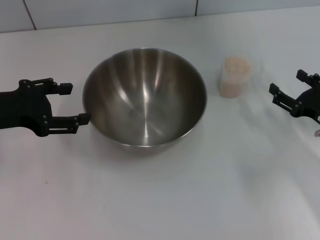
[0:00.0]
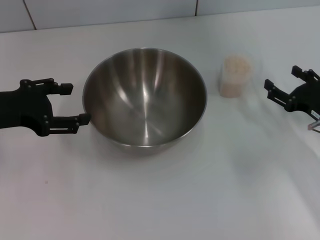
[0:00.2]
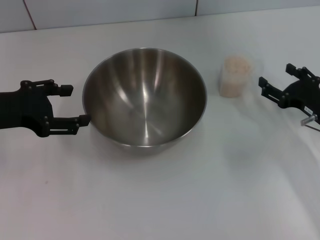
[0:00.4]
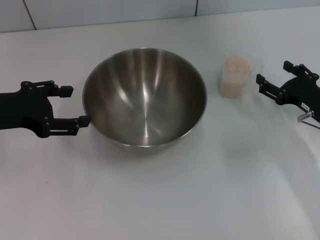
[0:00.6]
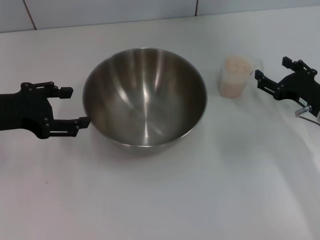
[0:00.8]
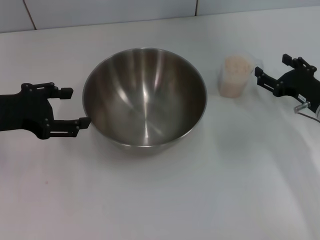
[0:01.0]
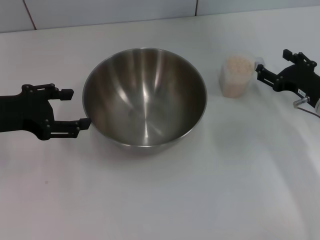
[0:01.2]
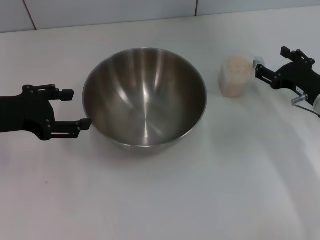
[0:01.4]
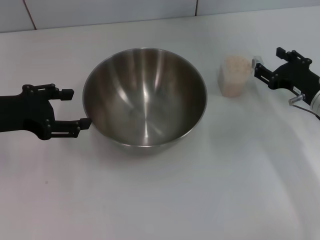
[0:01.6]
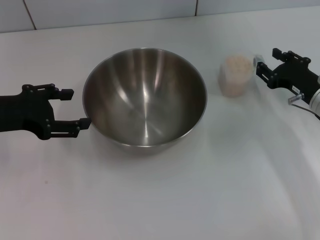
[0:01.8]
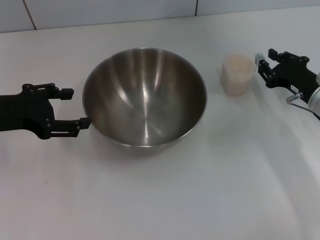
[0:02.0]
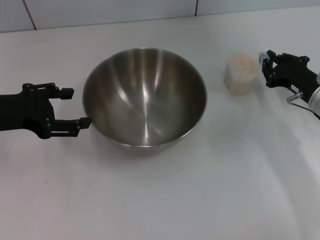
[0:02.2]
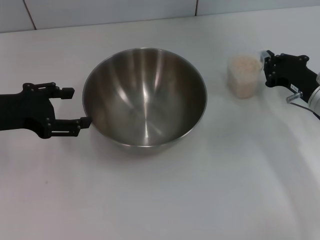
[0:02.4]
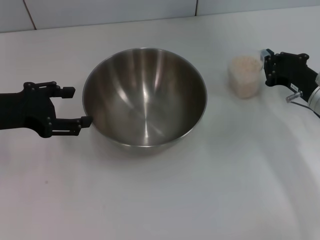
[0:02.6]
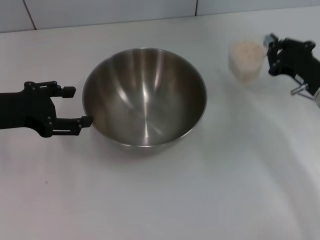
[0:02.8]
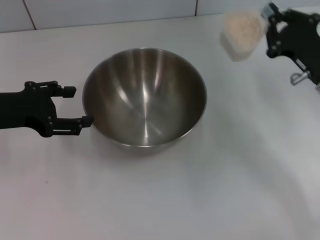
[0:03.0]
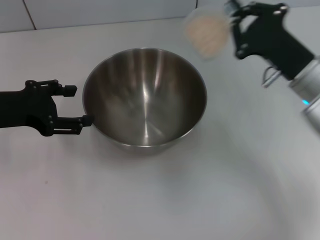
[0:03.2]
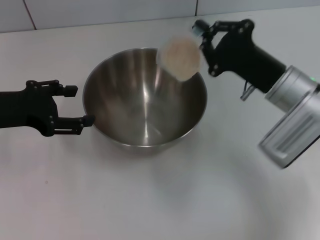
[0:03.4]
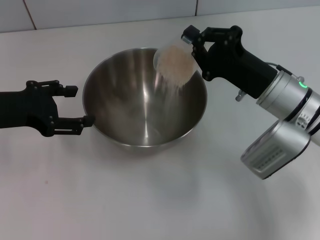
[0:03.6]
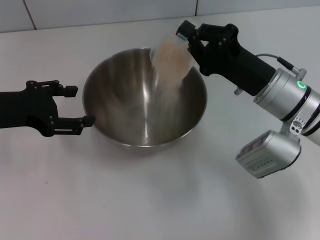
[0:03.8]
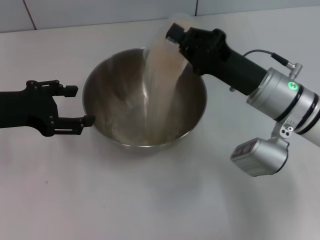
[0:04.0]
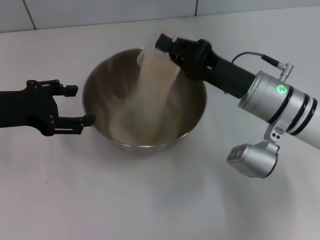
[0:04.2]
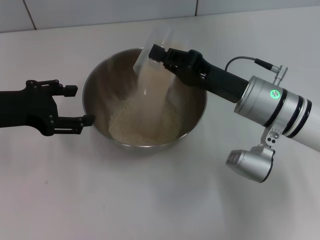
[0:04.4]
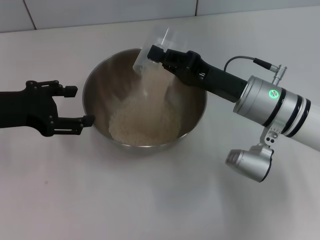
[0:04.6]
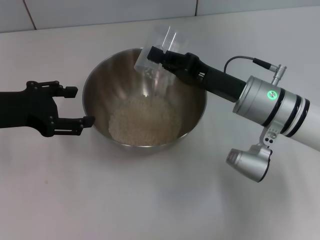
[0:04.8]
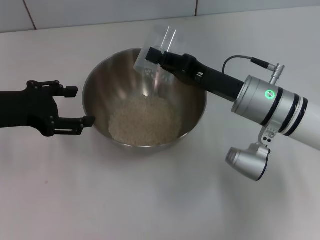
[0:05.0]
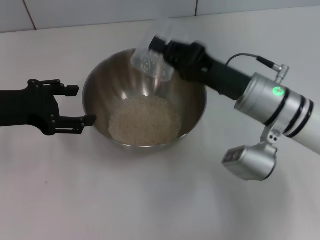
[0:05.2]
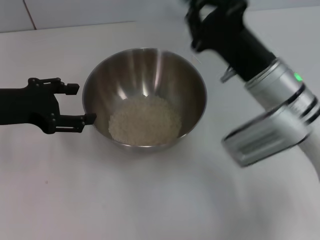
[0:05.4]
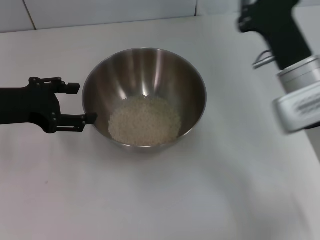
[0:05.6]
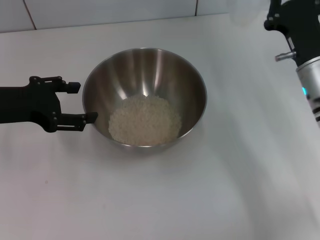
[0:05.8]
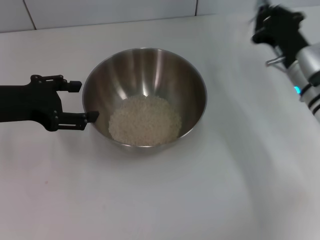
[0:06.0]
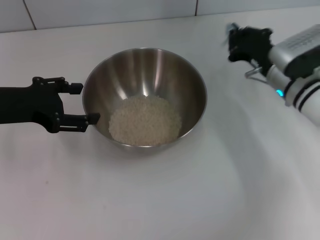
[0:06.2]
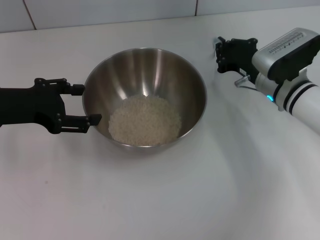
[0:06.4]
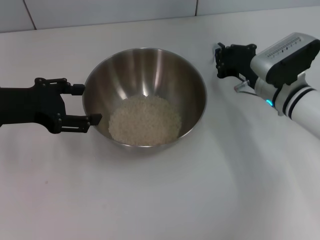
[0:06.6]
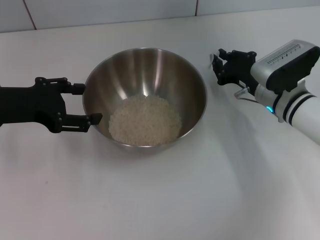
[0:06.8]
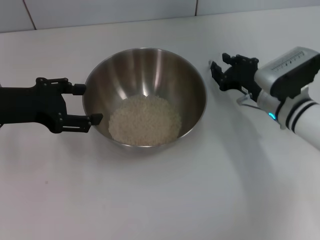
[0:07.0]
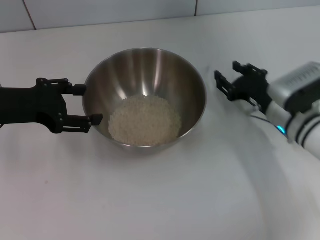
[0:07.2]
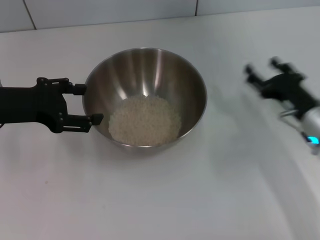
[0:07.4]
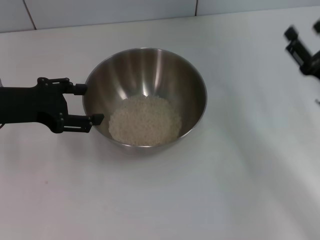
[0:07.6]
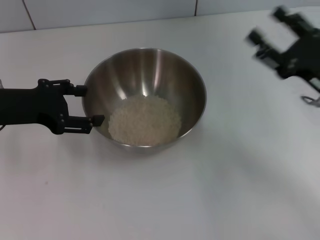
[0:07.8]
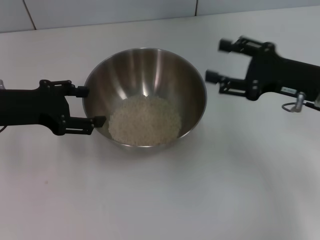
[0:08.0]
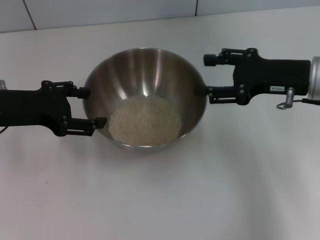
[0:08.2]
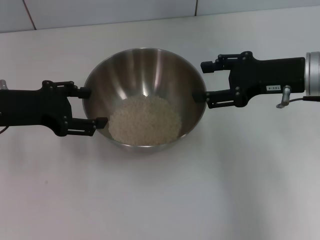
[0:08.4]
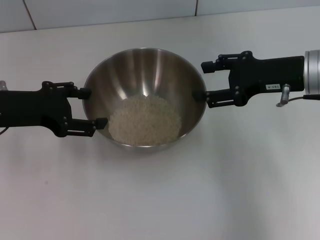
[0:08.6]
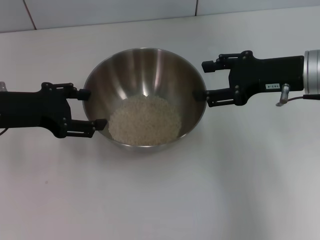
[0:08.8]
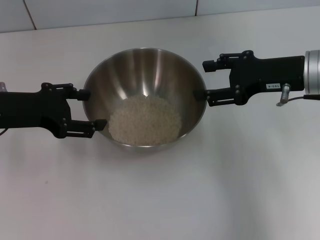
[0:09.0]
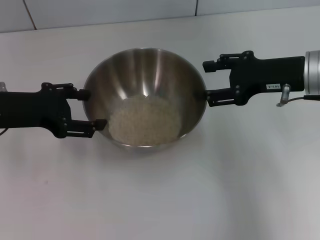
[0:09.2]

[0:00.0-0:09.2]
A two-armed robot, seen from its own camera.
Task of the whole recording: Place the bowl in the middle of the table with one hand and pour the rice from the grain cup into it with the other hand.
Step, 0:00.0 to 0:02.8: Pick up the cup with rice in it with the right gripper.
Step, 0:03.0 to 0:05.6: Pour the rice from the cup into the bowl with the right gripper.
Step, 0:05.8 to 0:07.4: Place the cup on the table with the right gripper.
0:00.0 to 0:01.6: The right gripper moves forward, some 5 cm.
0:01.6 to 0:03.0: The right gripper moves upward, some 5 cm, and closes its fingers.
0:03.0 to 0:04.6: The right gripper is displaced to the left by about 10 cm.
0:04.6 to 0:06.2: The right gripper moves to the right and forward, roughly 10 cm.
0:06.2 to 0:07.6: The right gripper heads backward and to the right, covering some 15 cm, and opens.
0:07.6 to 0:09.2: The right gripper shifts approximately 10 cm upward and forward.

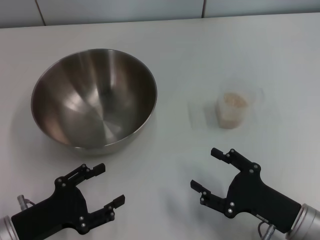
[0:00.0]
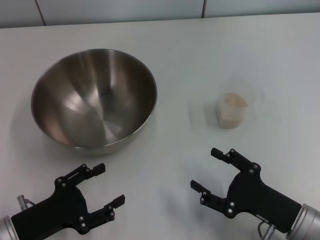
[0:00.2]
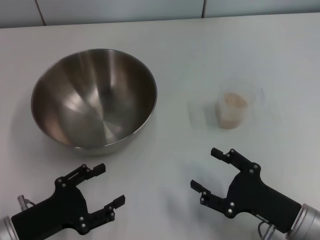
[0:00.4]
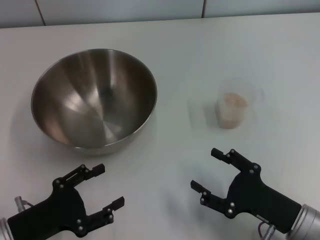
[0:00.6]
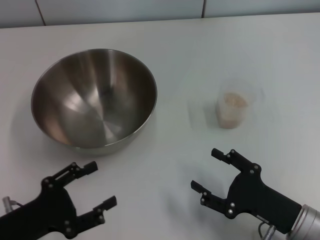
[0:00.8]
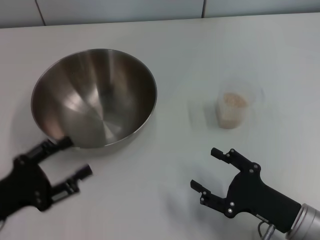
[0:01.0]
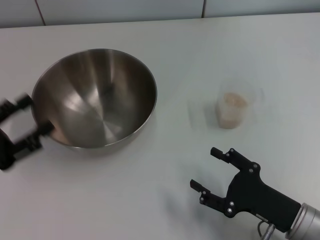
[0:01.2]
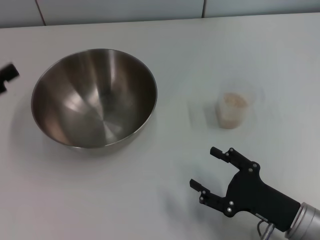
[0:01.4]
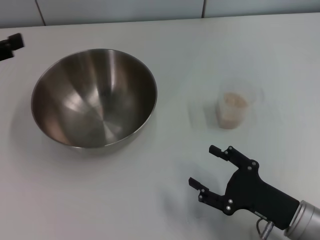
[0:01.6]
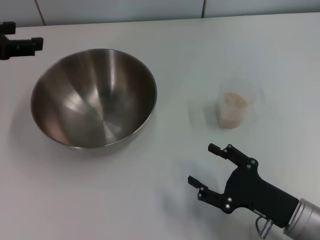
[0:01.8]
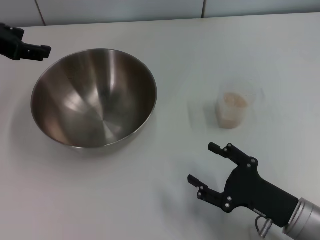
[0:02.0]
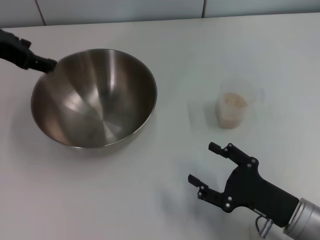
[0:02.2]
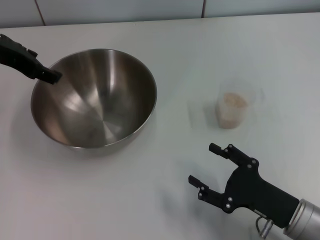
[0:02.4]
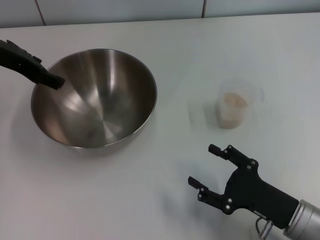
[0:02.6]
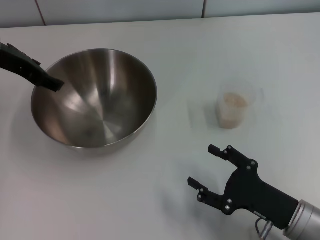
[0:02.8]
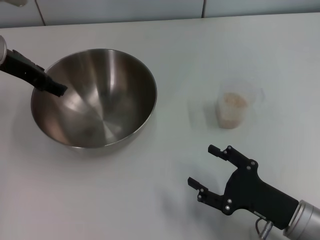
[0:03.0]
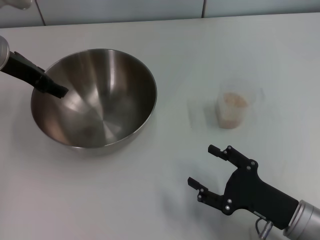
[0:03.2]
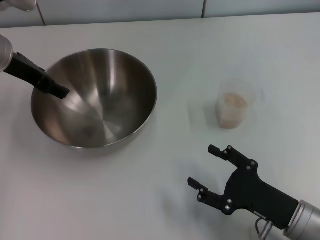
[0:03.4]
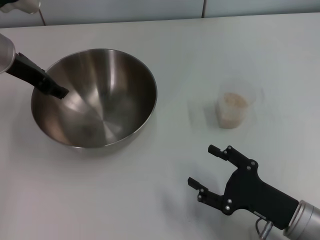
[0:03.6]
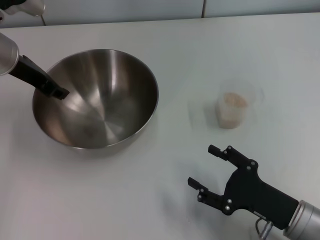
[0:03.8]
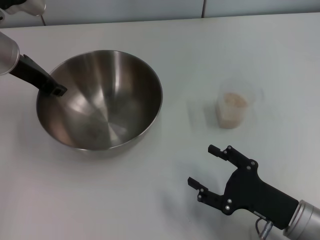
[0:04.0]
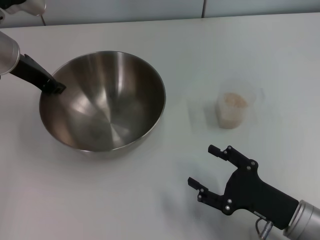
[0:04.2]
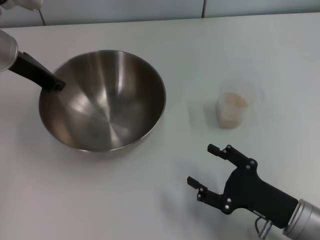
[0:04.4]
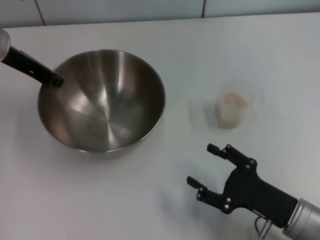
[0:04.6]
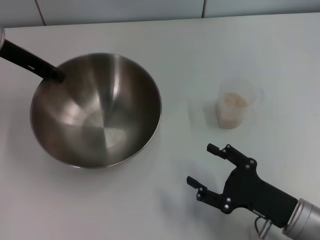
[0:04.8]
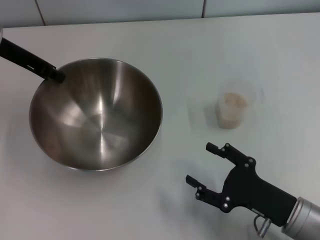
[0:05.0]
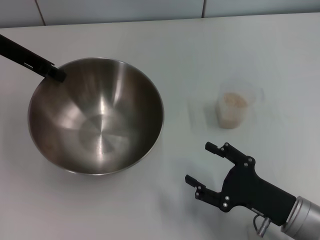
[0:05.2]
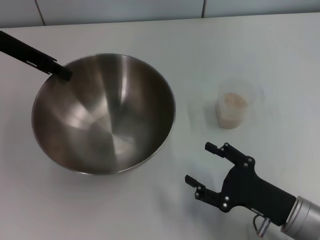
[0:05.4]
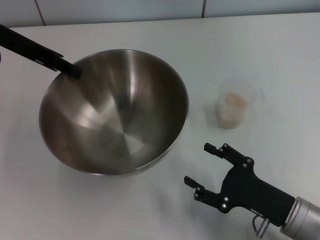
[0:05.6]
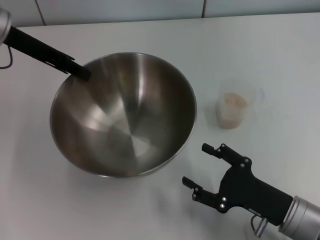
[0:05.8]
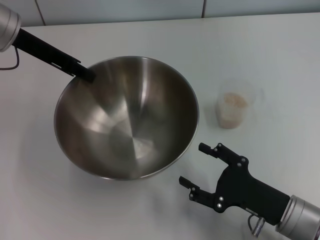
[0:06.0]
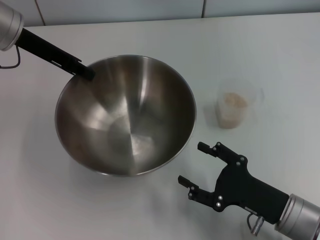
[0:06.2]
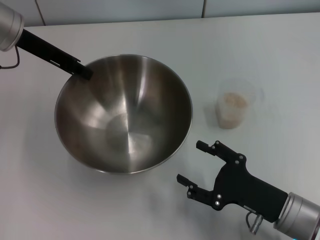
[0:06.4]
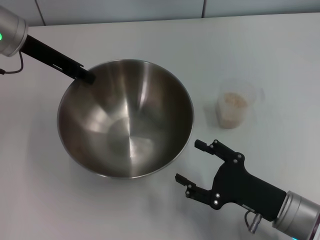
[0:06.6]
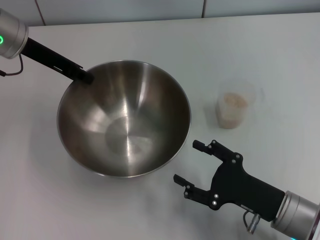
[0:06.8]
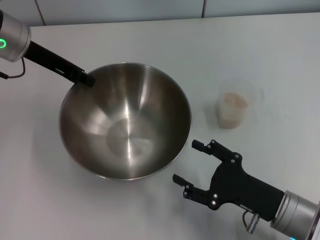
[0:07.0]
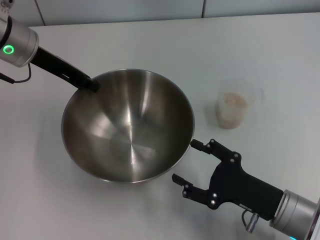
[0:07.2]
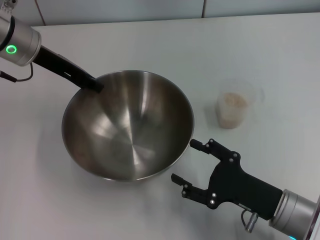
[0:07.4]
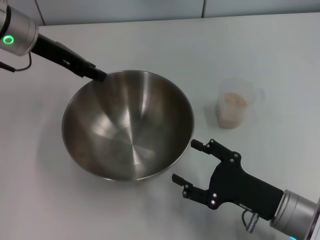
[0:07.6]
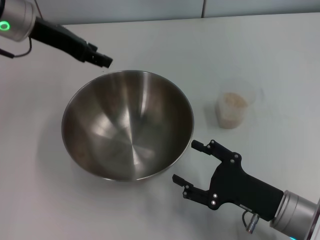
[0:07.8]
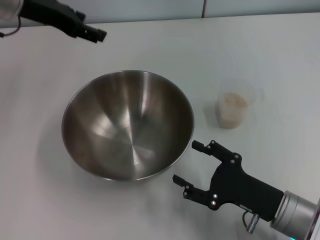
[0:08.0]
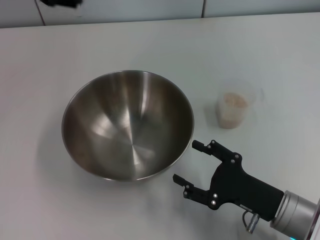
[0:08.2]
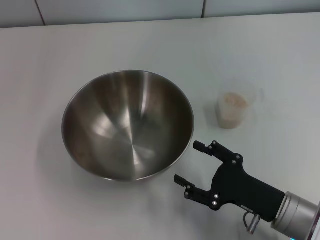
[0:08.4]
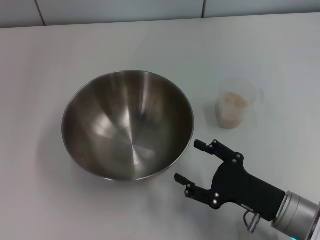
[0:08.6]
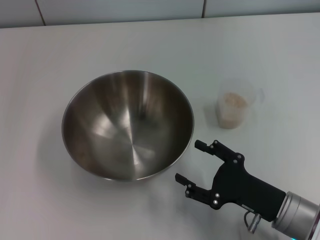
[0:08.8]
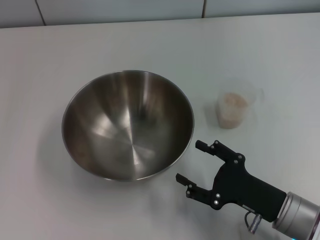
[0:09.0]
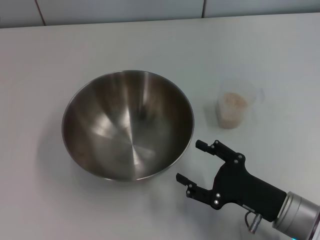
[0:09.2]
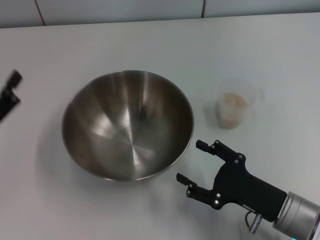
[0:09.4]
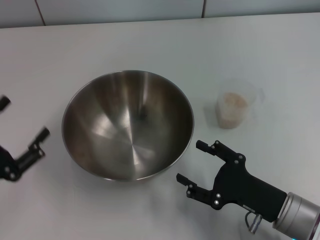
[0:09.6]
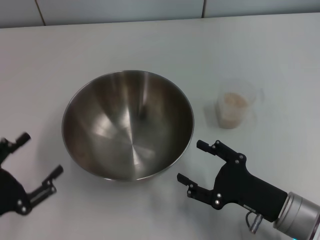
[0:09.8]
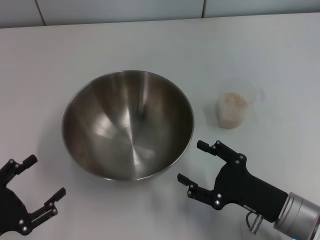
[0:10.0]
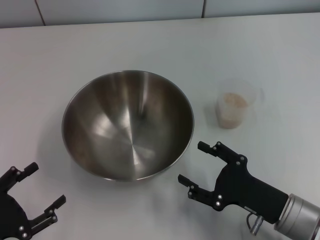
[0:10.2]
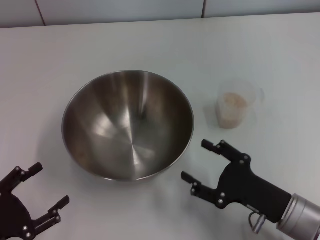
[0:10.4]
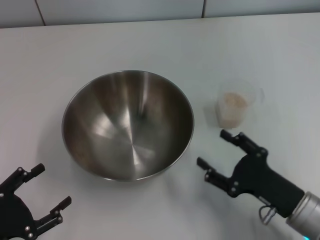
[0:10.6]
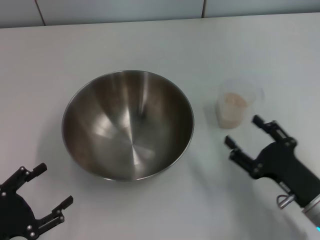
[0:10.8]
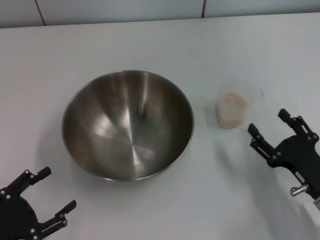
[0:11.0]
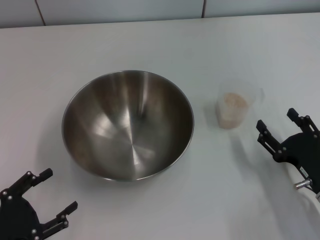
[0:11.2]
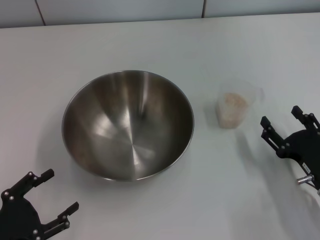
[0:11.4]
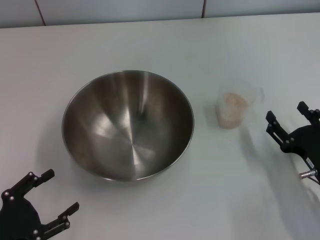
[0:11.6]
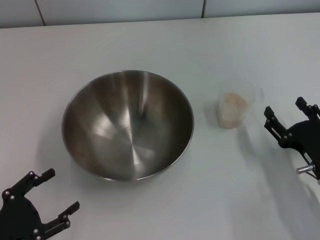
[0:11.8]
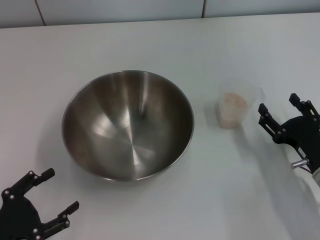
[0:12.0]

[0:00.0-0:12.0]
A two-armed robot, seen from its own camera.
Task of the whole recording: Place the bowl in the middle of the table with one hand and pour the rice from the grain cup into it with the other hand.
Step, 0:00.0 to 0:04.6: Pick up the bowl with the left gripper.
Step, 0:04.8 to 0:07.6: Place the bowl in the center of view with the left gripper.
0:00.0 to 0:01.6: The left gripper moves upward, forward and to the left, some 25 cm.
0:01.6 to 0:03.0: The left gripper goes roughly 15 cm to the right and forward.
0:03.0 to 0:04.4: The left gripper closes.
0:06.0 to 0:07.6: The grippers move only a little.
0:07.6 to 0:09.0: The left gripper is displaced backward and to the left by roughly 20 cm, and opens its fingers.
0:09.0 to 0:10.4: The left gripper goes about 20 cm downward and backward.
0:10.4 to 0:12.0: The right gripper goes about 5 cm to the right.

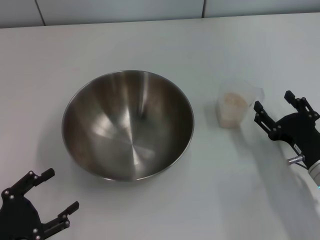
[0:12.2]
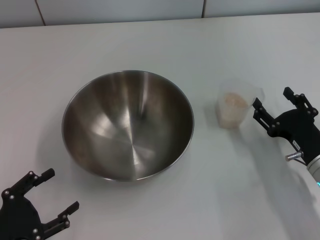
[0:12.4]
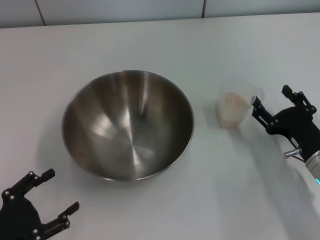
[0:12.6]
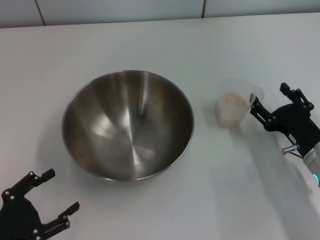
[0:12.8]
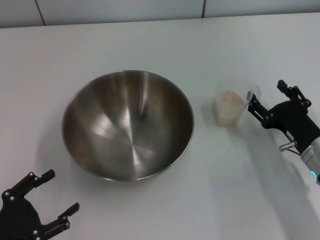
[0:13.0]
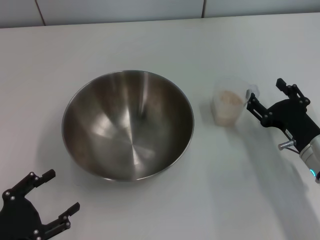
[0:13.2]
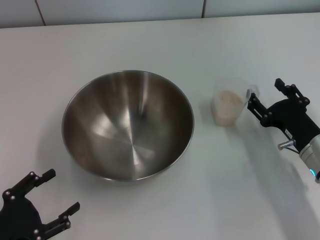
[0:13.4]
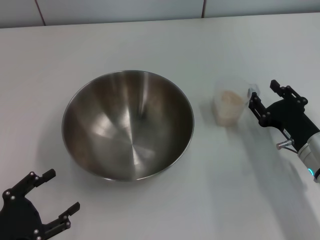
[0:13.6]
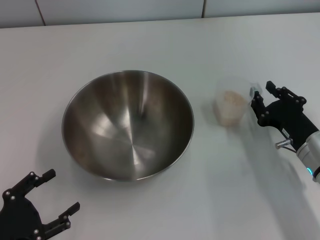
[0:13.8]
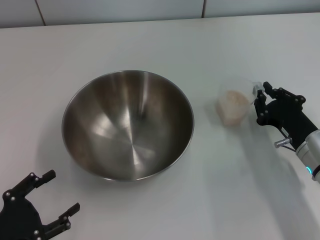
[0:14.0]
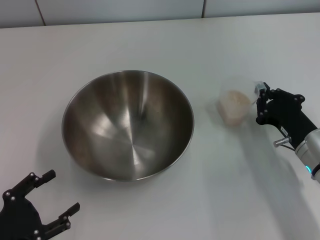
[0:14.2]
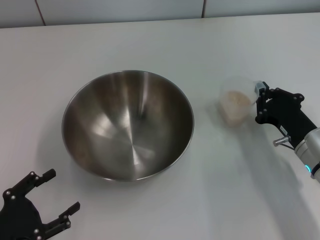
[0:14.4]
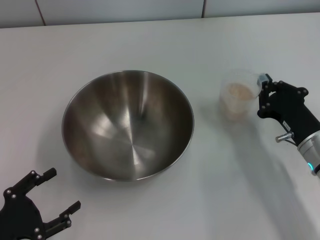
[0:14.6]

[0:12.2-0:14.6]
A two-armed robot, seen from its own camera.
Task of the whole recording: Place the bowl in the middle of the table with one hand and pour the rice from the grain cup into it with the other hand.
0:12.2 to 0:13.4: The grippers make only small movements.
0:13.4 to 0:14.6: The right gripper closes.
